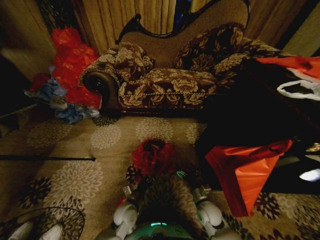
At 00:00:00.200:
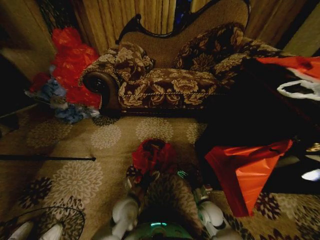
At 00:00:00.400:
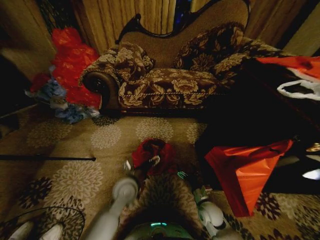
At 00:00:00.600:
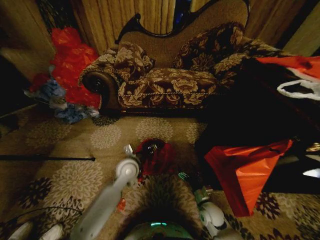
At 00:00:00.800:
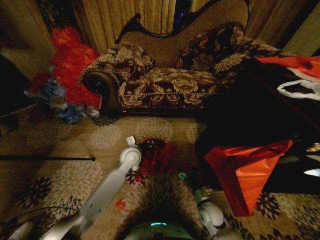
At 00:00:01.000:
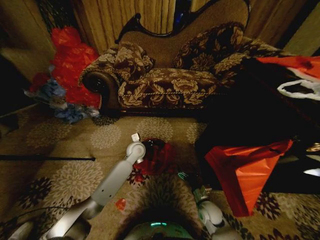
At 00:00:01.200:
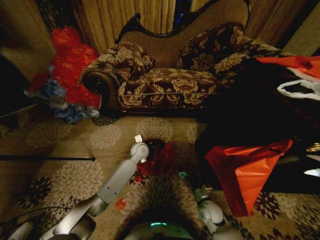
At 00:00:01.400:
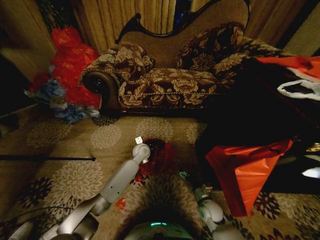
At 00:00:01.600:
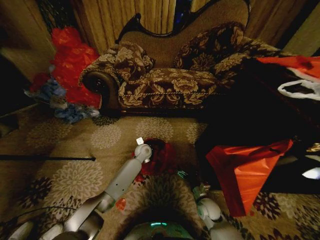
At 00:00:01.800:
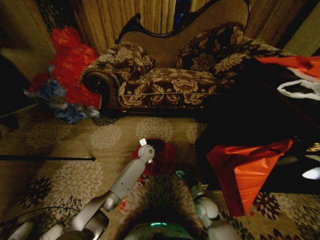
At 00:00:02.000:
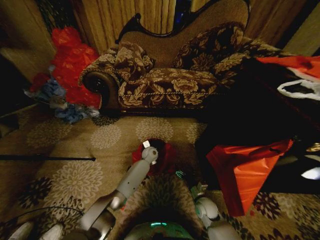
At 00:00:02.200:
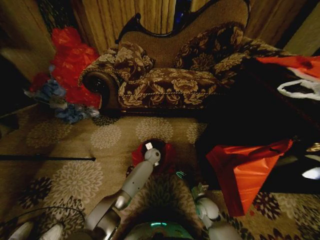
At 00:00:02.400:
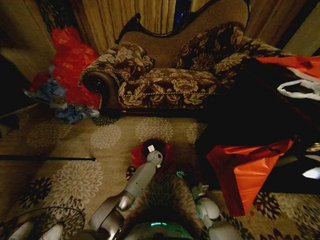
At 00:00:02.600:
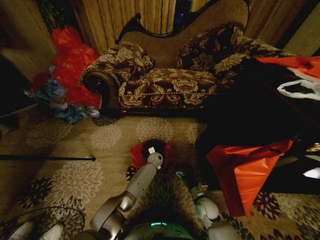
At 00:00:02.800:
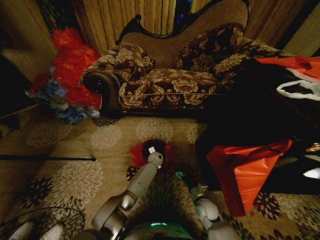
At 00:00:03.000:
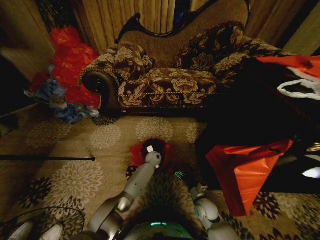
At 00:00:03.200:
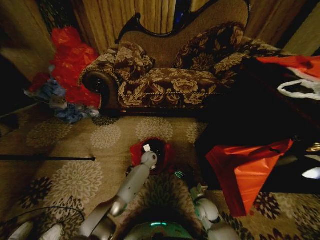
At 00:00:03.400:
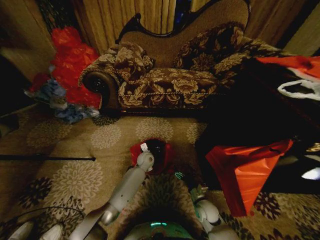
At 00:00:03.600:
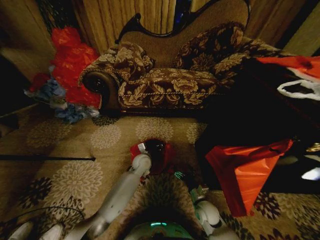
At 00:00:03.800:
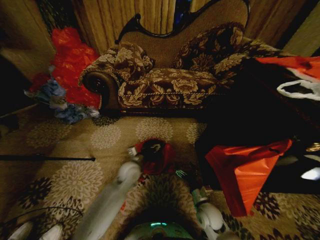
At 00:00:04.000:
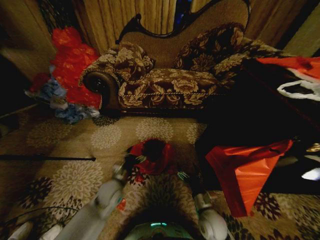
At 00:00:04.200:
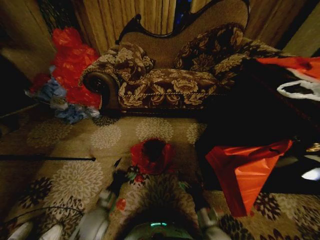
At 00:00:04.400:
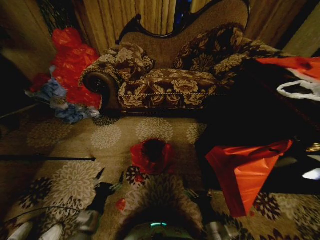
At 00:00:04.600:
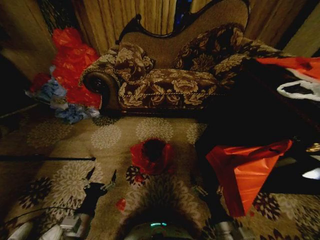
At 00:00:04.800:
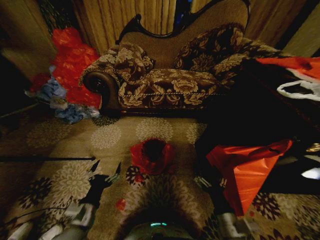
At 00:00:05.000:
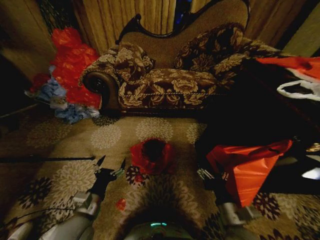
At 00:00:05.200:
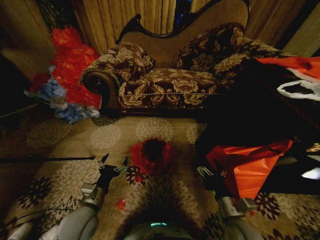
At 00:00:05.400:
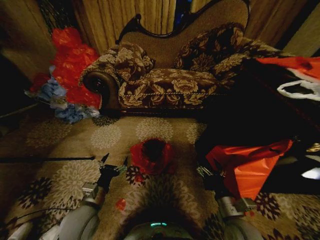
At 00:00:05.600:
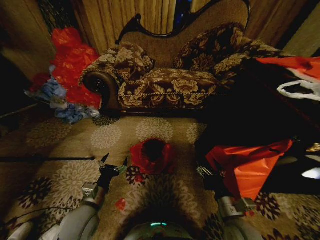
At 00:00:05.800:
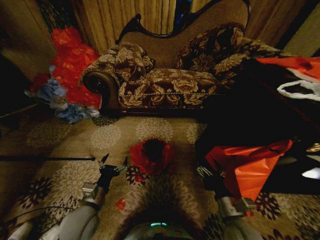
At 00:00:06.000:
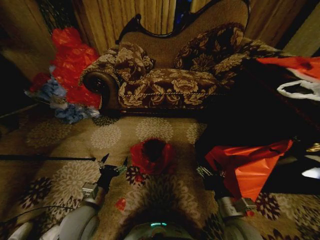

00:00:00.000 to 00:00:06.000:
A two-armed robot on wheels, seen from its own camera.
Task of the whole recording: Place a garbage bag over the trash bin.
00:00:00.000 to 00:00:01.600: The left gripper goes approximately 25 cm forward, and closes up.
00:00:01.600 to 00:00:03.000: The left gripper shifts approximately 10 cm downward and to the right.
00:00:03.000 to 00:00:04.400: The right gripper goes roughly 20 cm backward and upward; the left gripper shifts approximately 40 cm backward and to the left, and opens up.
00:00:04.400 to 00:00:06.000: The right gripper heads upward and forward, covering roughly 10 cm; the left gripper travels upward by roughly 5 cm.
